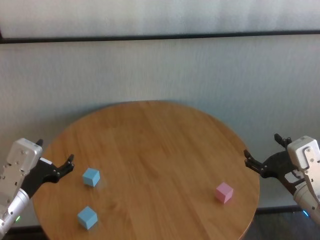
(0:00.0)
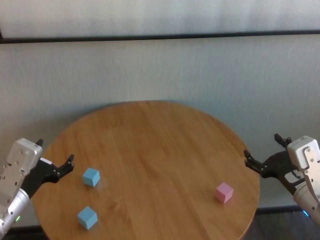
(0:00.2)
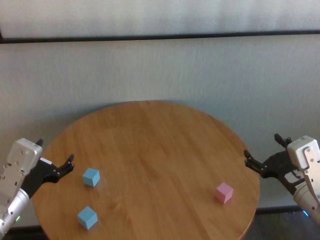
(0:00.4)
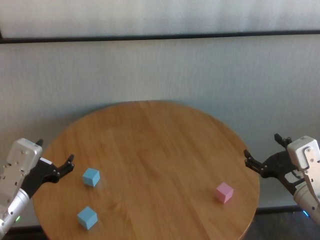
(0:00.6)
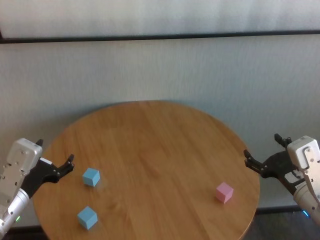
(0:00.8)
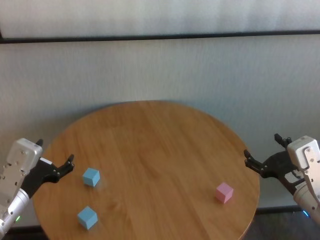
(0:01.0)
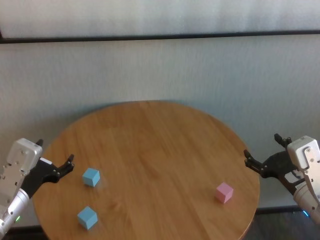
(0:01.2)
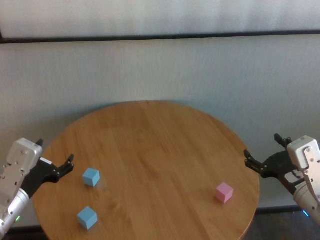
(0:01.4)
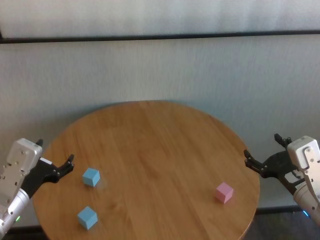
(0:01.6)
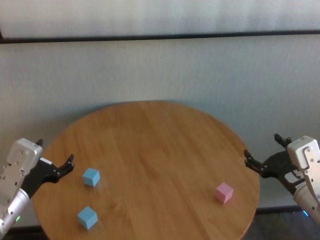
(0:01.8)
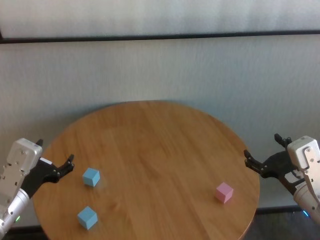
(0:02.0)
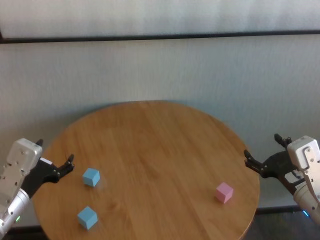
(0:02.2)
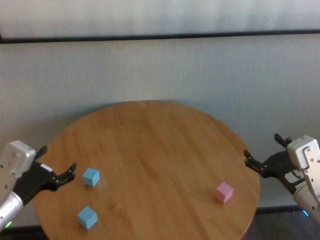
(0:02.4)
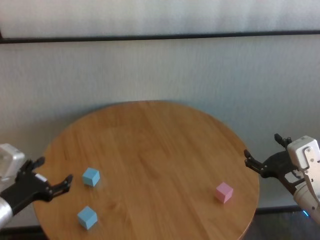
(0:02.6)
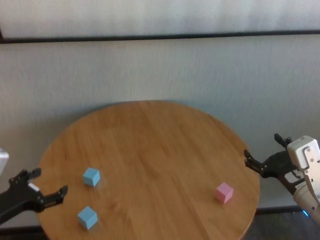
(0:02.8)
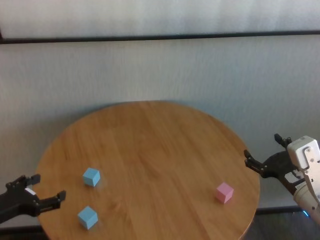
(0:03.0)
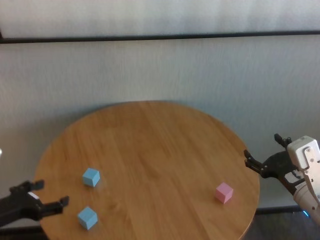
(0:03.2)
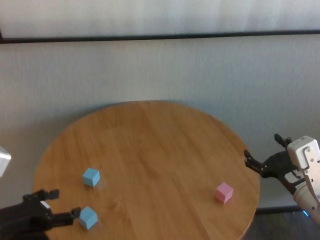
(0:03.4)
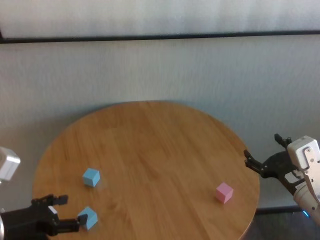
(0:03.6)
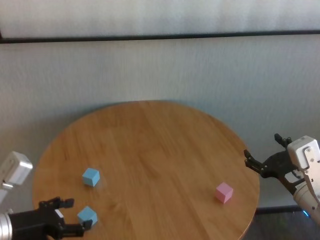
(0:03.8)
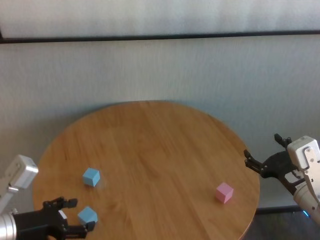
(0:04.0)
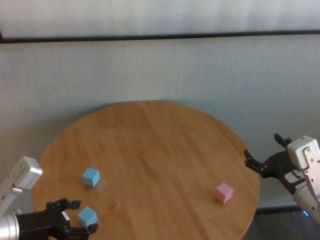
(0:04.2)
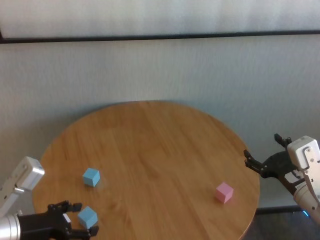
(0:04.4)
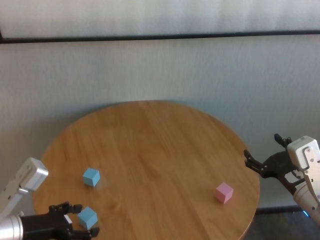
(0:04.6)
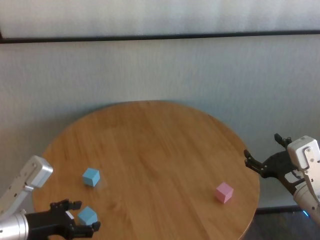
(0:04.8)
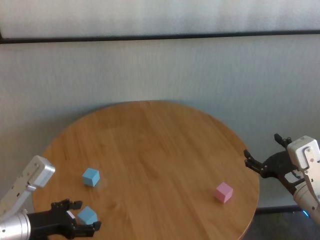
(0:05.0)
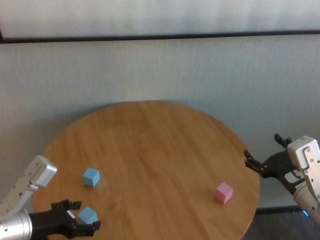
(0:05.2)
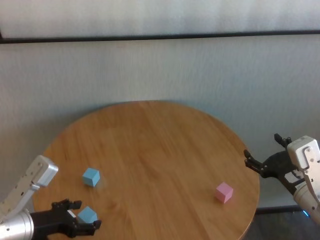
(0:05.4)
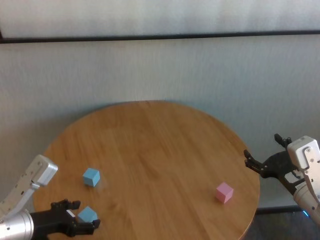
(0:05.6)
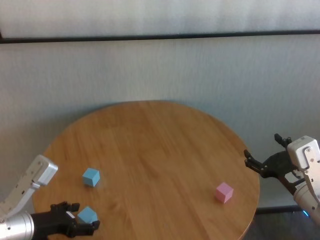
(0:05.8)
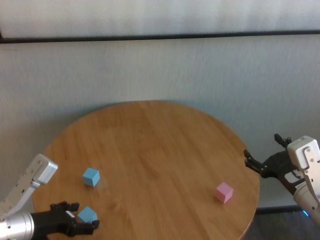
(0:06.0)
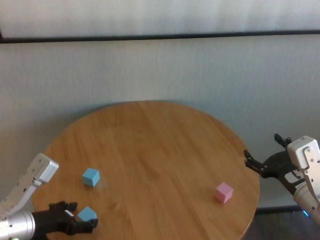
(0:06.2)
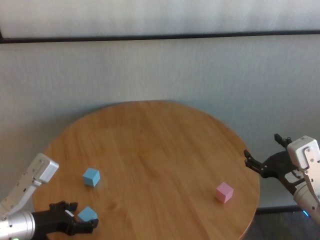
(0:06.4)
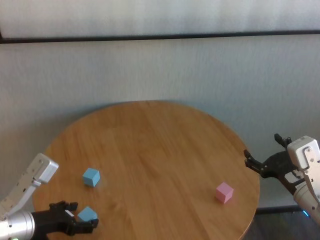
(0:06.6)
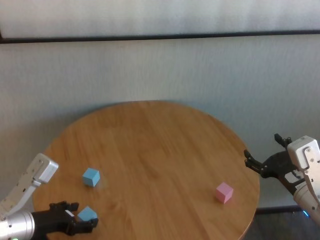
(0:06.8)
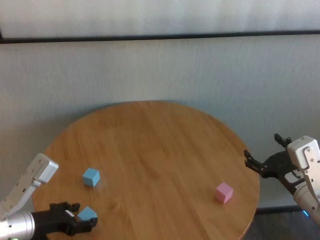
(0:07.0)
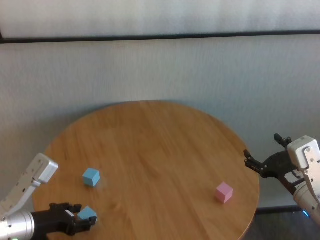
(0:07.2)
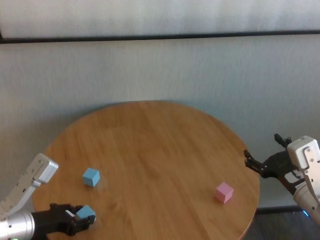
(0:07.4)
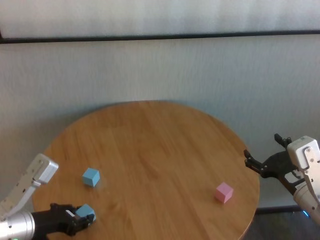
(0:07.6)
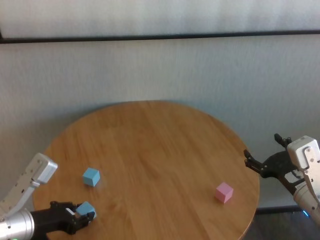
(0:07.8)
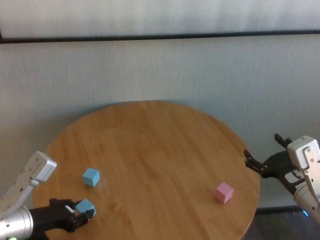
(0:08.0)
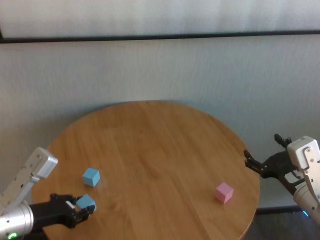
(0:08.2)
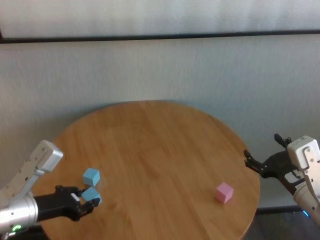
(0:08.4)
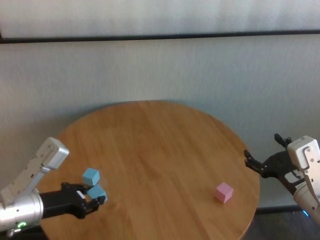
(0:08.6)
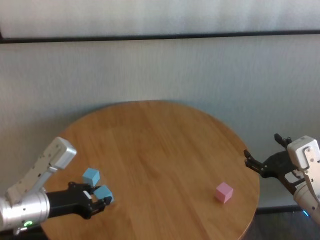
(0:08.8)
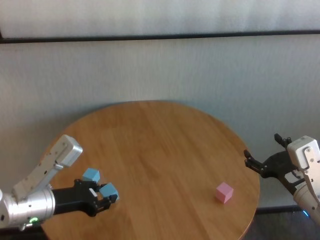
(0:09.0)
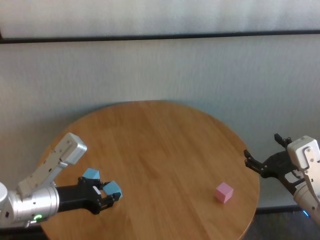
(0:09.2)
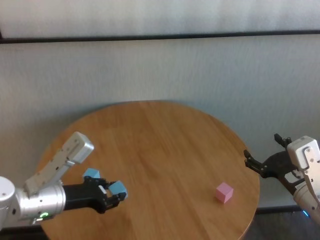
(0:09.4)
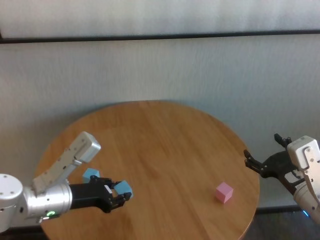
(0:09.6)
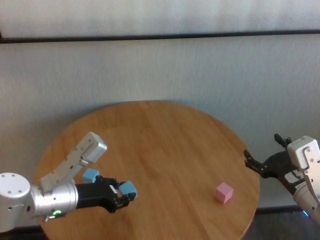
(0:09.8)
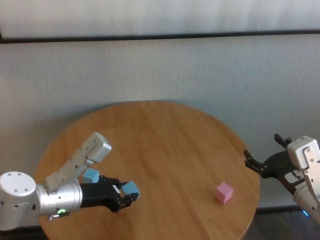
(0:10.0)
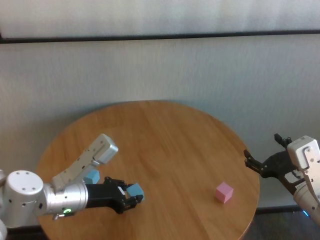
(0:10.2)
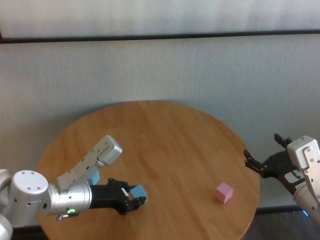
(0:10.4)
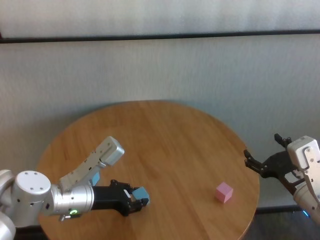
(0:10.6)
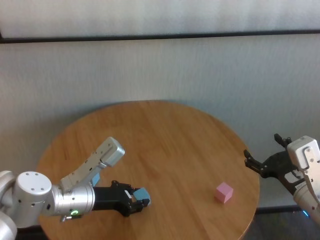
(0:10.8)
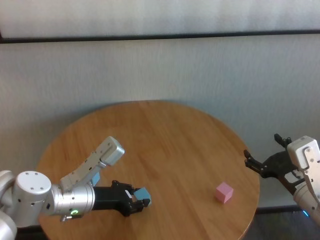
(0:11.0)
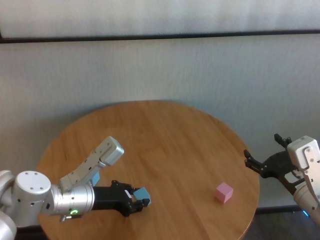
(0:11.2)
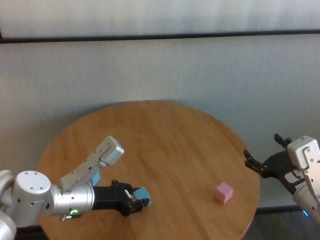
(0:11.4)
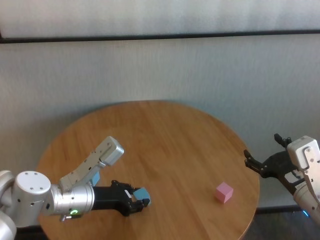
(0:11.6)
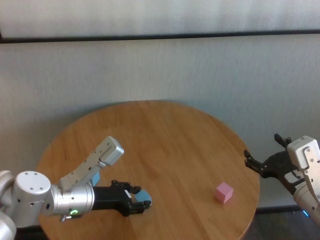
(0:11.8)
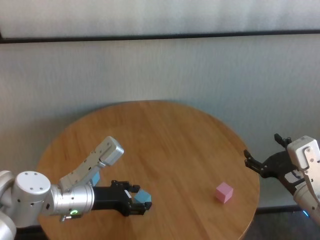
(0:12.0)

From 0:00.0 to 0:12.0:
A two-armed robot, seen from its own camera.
Task of the whole recording: stack building blocks on the table.
Step, from 0:00.0 to 0:07.4: Grasp the blue building block with left gripper.

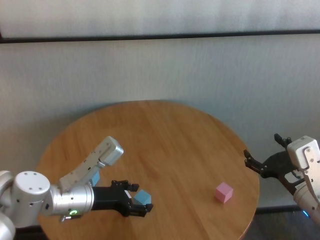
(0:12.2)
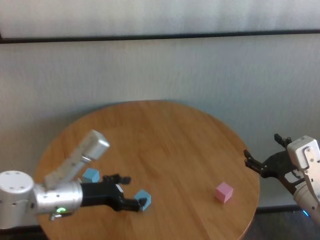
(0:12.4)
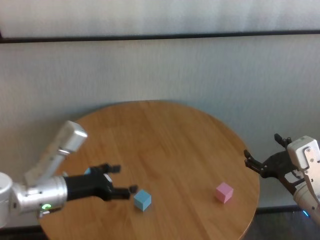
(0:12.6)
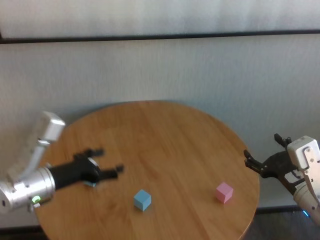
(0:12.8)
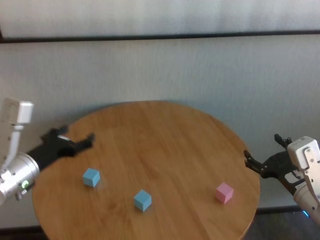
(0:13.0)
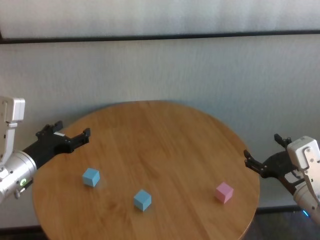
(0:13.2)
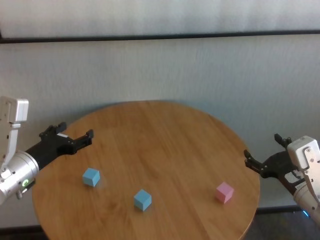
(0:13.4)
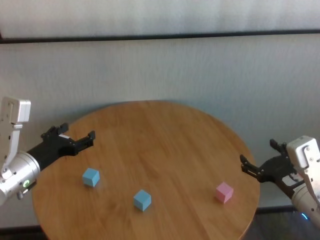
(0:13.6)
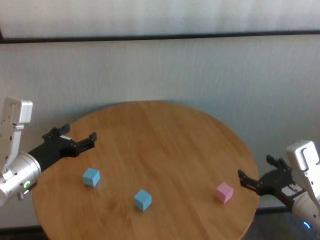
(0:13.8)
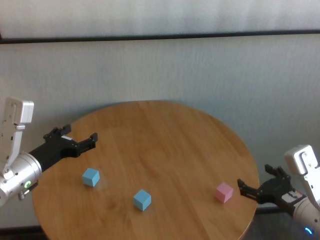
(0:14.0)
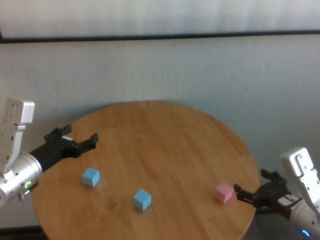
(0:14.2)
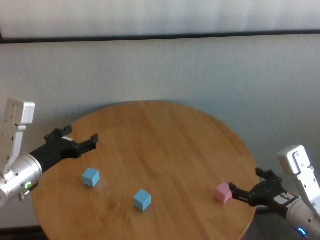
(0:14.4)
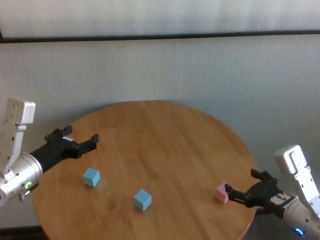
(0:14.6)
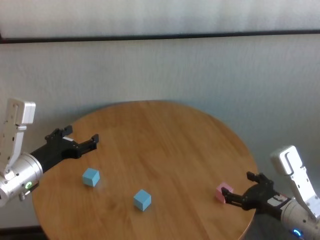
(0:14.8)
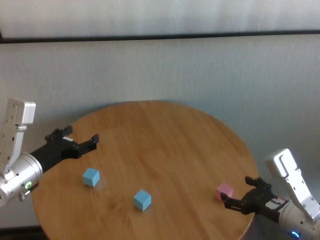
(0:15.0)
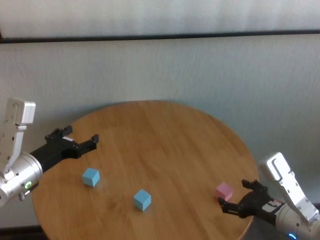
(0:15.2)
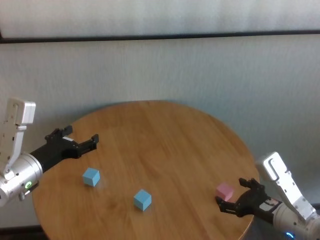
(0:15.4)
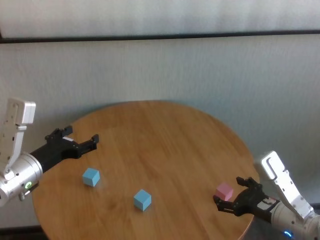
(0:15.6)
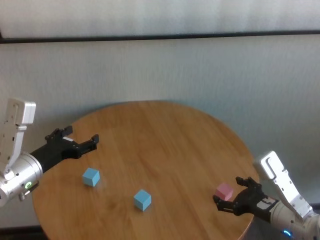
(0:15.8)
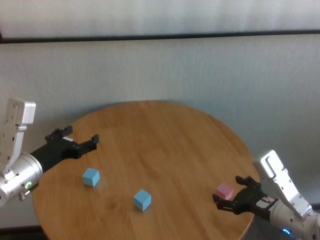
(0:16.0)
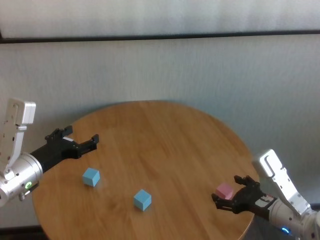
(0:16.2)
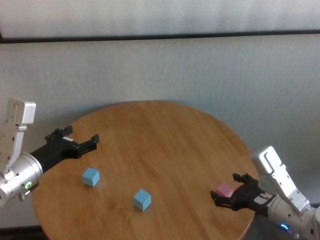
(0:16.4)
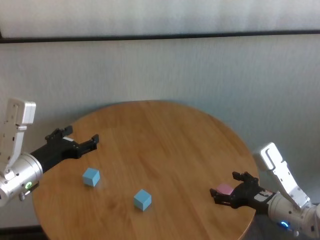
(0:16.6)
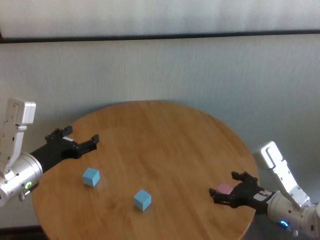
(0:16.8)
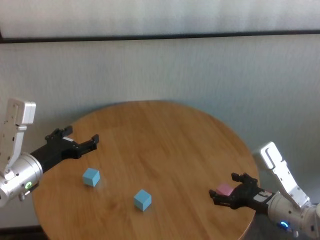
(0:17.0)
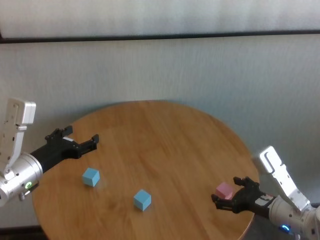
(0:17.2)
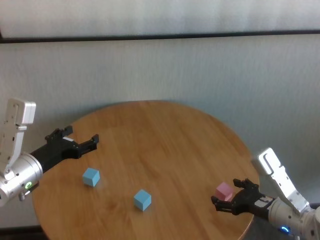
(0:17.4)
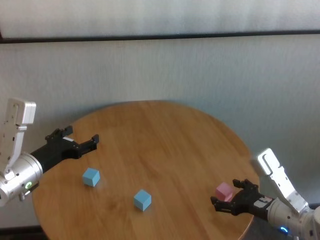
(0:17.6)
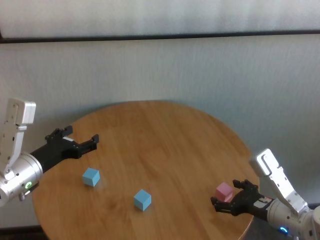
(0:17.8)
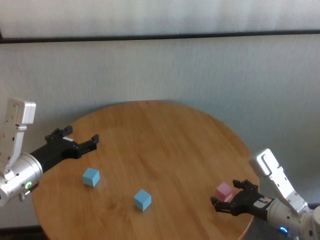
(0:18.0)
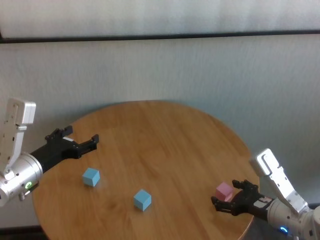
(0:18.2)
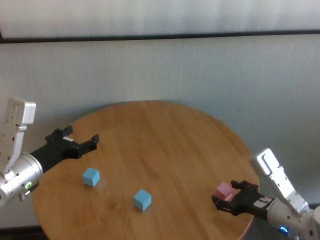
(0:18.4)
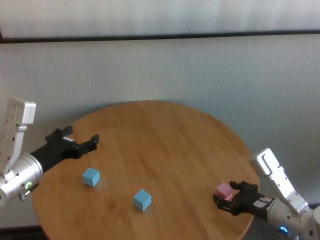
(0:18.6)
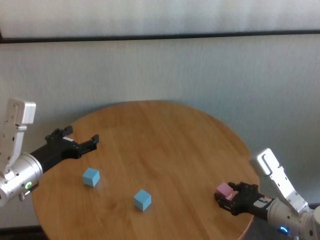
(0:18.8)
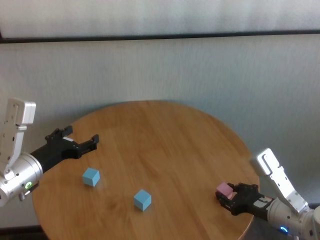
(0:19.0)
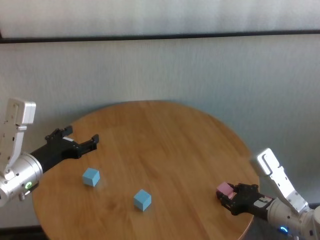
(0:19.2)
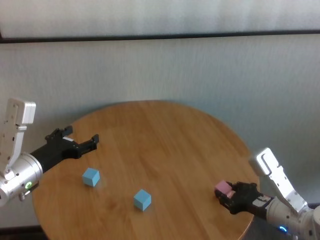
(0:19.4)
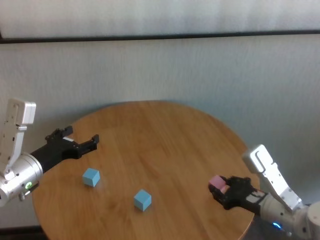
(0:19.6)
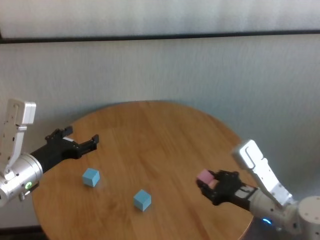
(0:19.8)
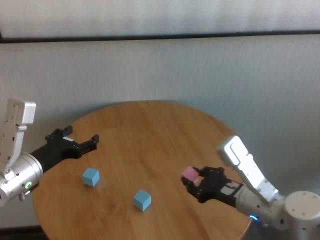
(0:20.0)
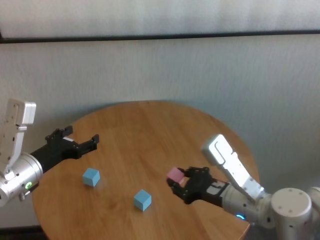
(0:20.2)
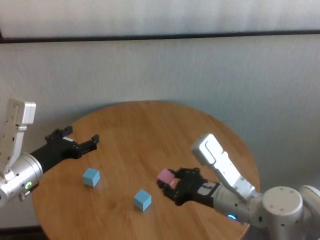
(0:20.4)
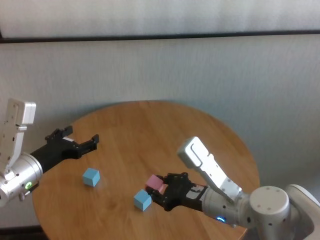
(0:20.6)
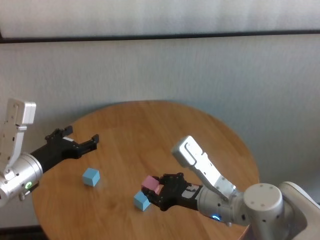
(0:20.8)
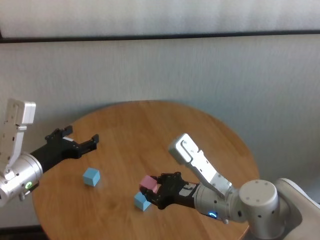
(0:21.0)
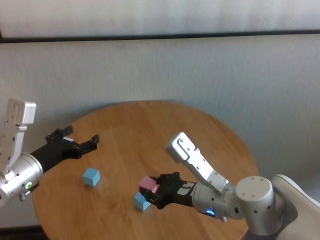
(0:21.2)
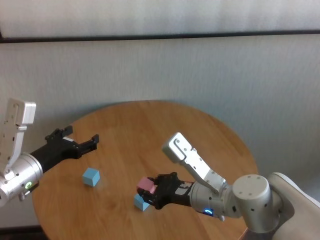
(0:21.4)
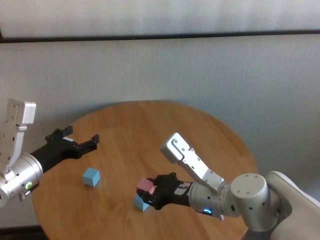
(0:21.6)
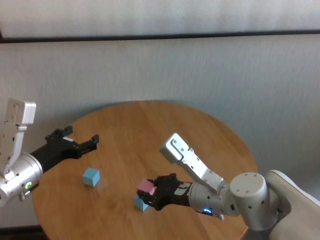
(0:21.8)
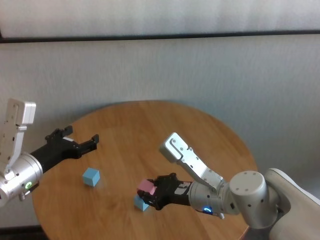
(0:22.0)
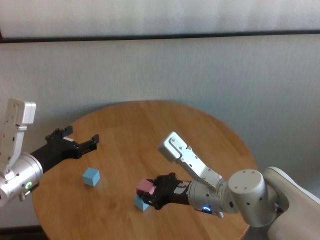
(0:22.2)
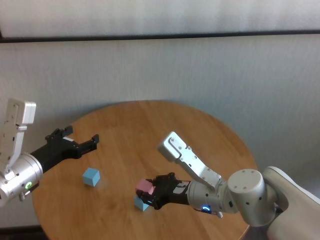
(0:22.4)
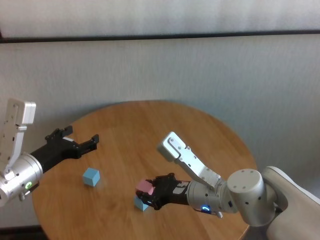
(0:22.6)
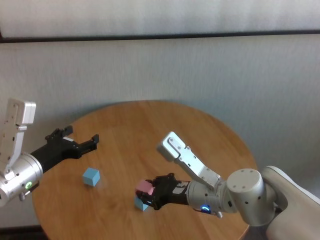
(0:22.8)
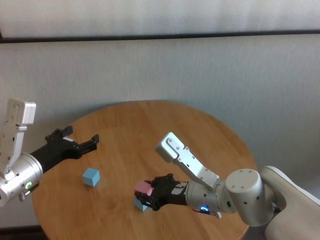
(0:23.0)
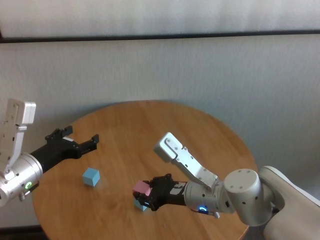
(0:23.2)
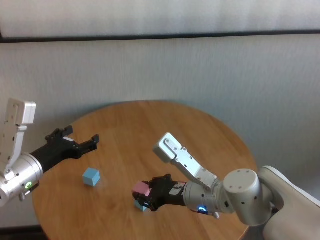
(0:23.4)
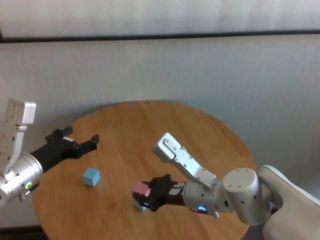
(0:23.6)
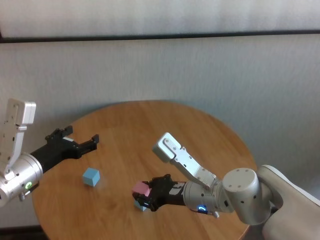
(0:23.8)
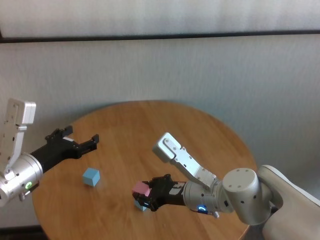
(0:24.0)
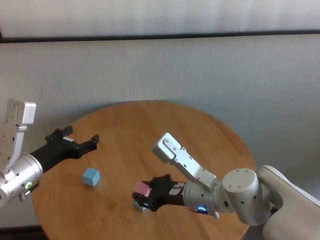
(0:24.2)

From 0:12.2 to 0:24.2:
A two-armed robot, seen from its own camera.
Task of the whole recording: stack building blocks on the table.
Step, from 0:12.4 to 0:19.0: Grasp the pink building block with right gripper.
